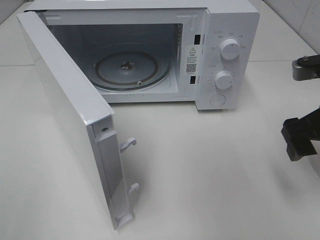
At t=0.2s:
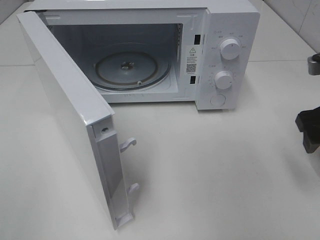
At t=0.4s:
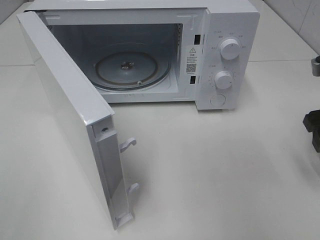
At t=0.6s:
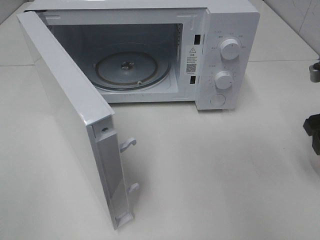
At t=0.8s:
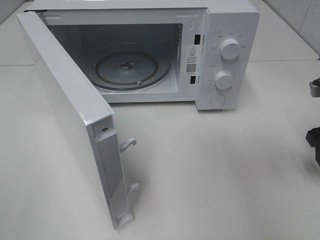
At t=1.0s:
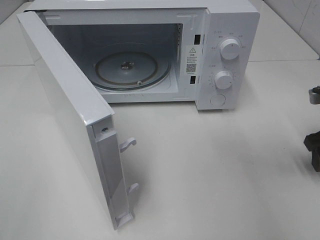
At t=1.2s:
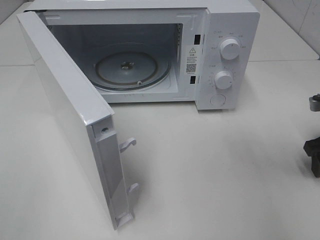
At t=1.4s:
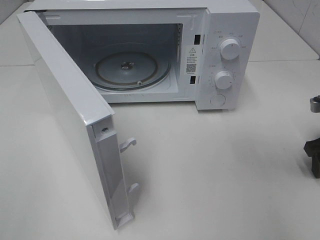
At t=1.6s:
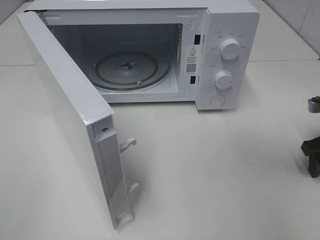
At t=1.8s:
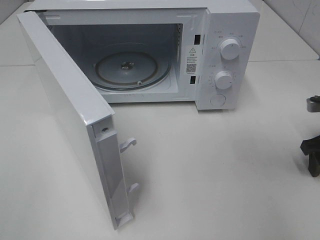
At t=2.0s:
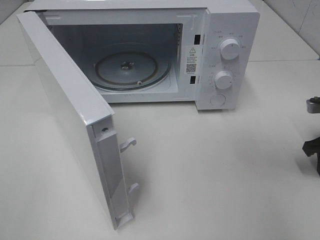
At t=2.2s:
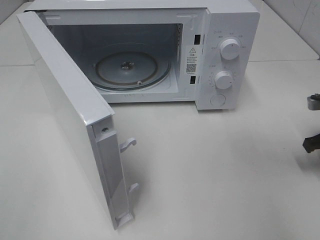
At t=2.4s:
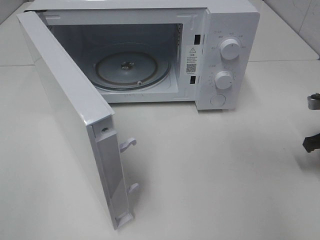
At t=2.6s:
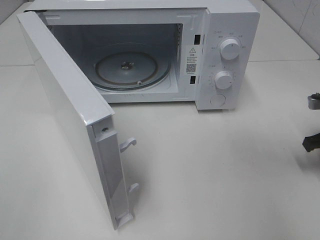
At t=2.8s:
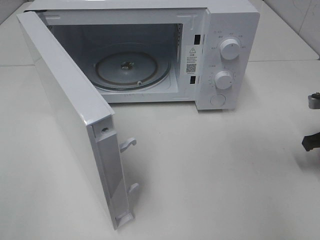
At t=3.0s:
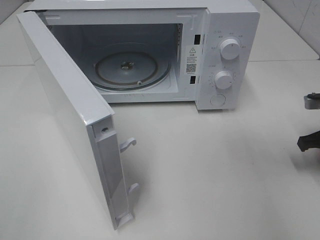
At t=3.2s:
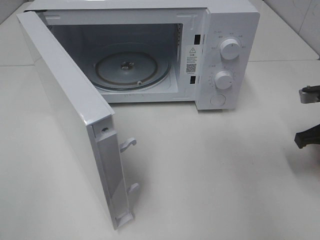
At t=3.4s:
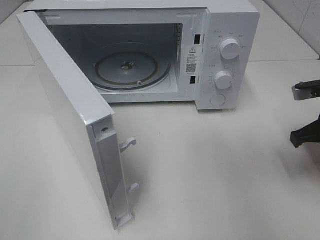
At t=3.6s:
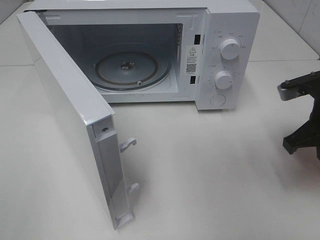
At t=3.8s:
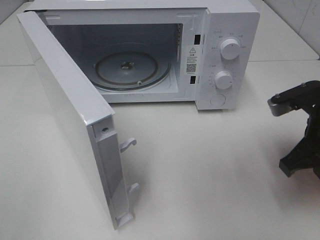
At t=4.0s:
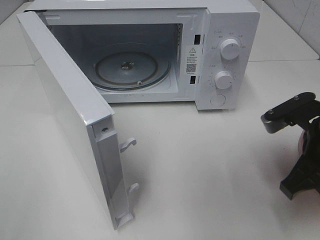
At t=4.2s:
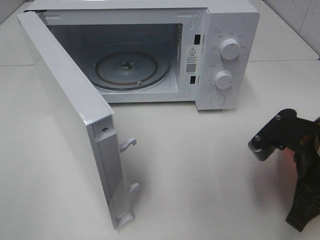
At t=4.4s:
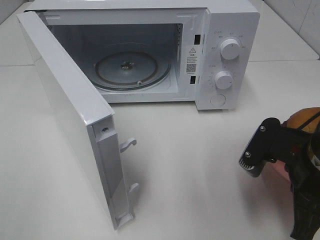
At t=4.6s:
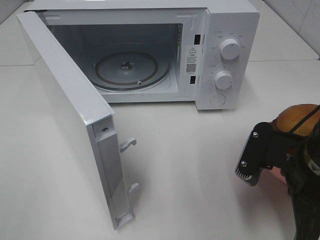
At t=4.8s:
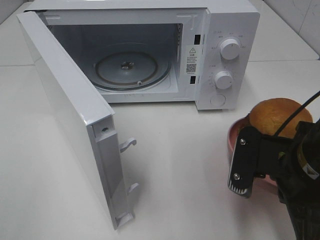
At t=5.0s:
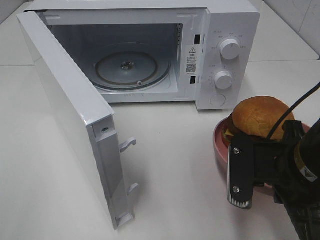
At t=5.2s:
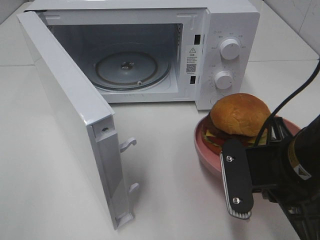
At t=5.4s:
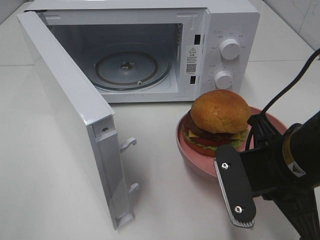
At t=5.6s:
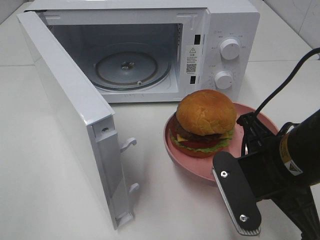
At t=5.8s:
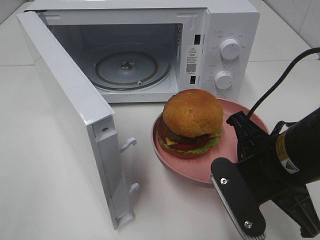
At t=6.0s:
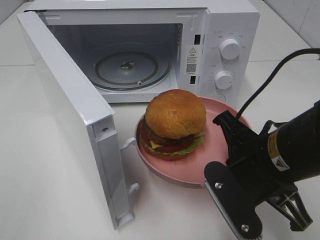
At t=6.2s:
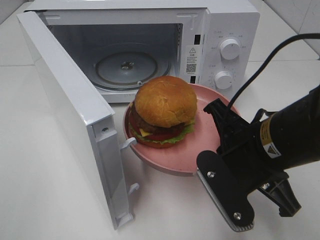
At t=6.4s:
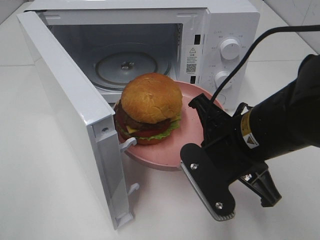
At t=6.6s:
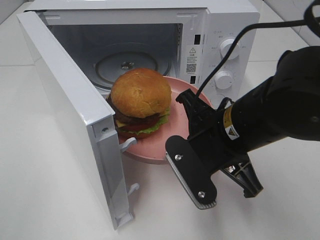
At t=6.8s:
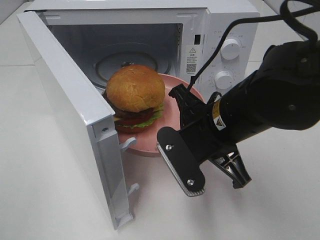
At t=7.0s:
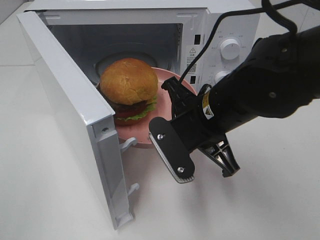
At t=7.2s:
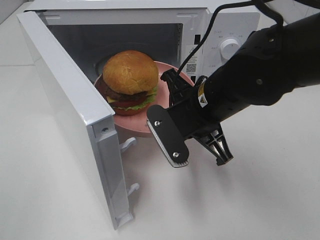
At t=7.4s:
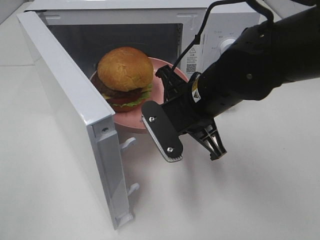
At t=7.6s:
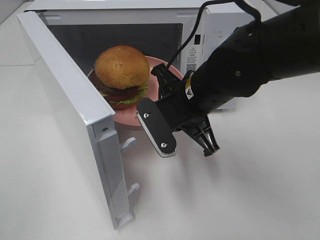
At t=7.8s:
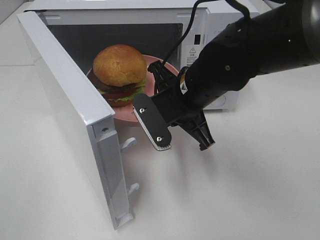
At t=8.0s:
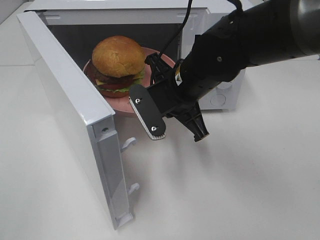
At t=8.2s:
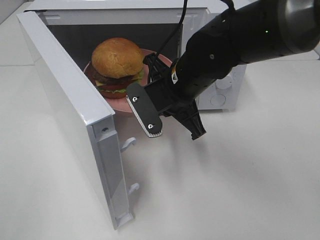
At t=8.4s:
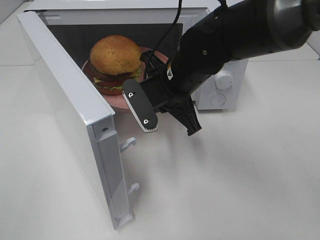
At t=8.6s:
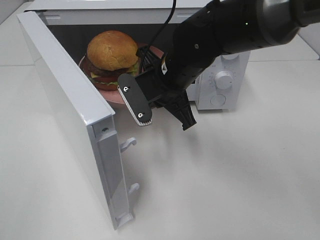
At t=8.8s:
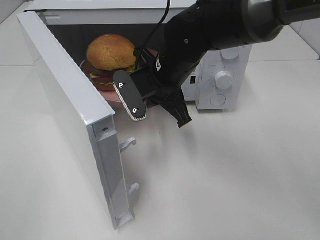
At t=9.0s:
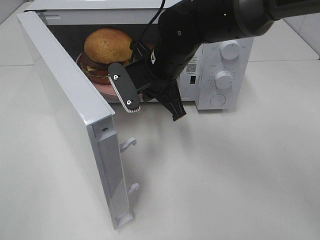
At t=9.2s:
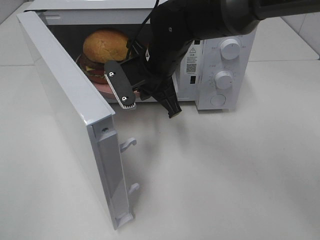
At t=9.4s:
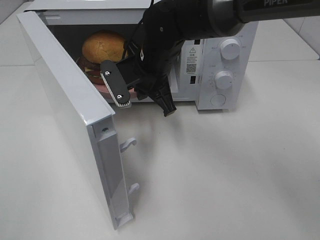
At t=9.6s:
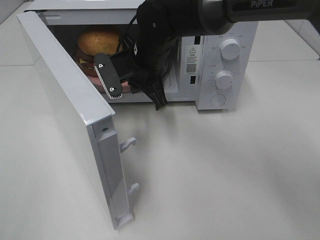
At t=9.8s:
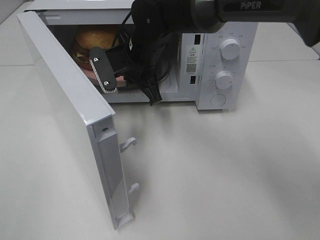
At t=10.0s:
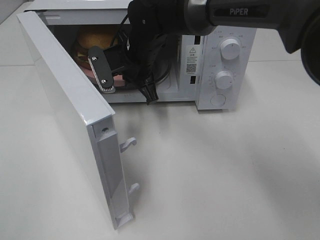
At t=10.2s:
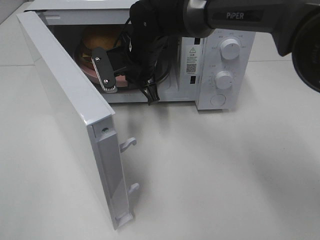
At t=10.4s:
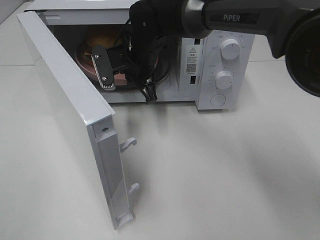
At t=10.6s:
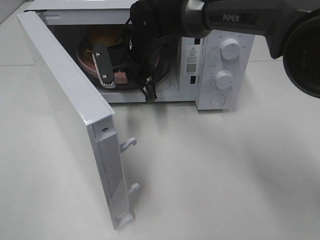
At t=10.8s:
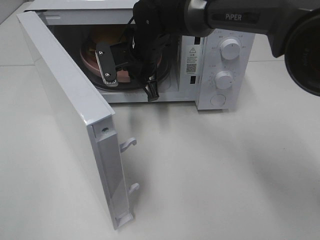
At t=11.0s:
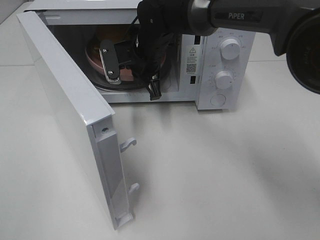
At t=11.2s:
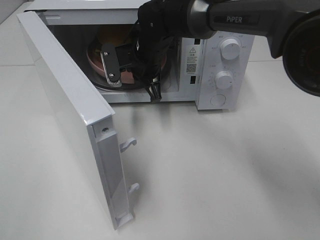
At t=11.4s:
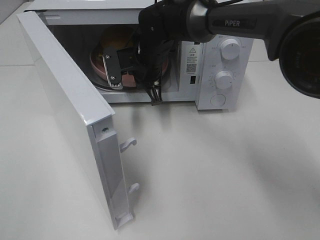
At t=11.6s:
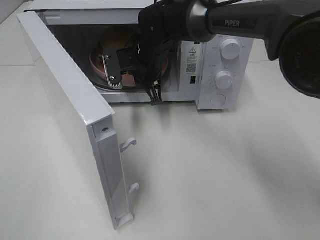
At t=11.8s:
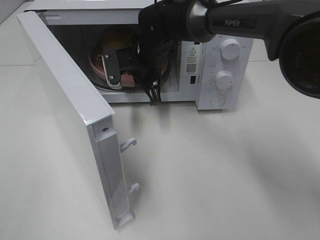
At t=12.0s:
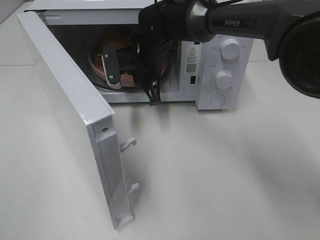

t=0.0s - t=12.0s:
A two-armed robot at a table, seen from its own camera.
Task of the whole recording: Heat the burger.
Step, t=0.0s - t=3.0s: Right hand: grab the plate with the hamburger.
t=0.0s - t=1.6s: The right gripper travels downward, to the right and forward by about 15 cm.
t=1.6s - t=3.0s: The right gripper closes.
t=3.0s - t=4.4s: The right gripper is displaced to the left and backward by some 20 cm.
t=4.4s - t=6.0s: The right gripper goes roughly 5 cm to the left.
t=6.0s - t=7.6s: The right gripper goes some 15 cm forward and to the left.
t=7.6s - t=9.0s: The right gripper goes some 5 cm forward.
t=9.0s - t=10.4s: The right gripper goes about 5 cm forward.
t=10.4s - t=12.0s: There are only small adjustments of the grippers.

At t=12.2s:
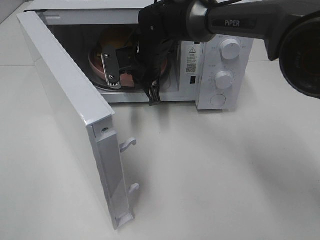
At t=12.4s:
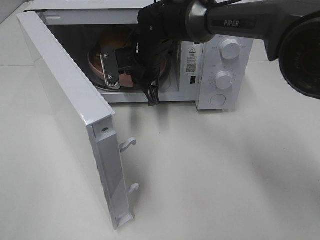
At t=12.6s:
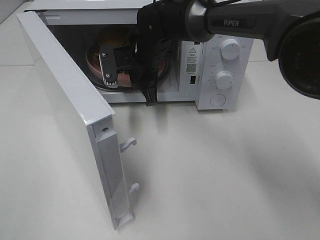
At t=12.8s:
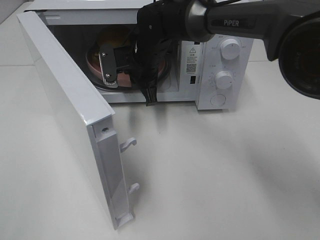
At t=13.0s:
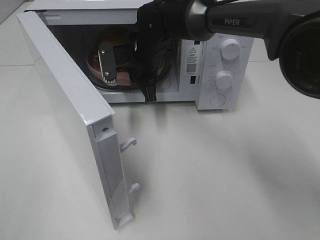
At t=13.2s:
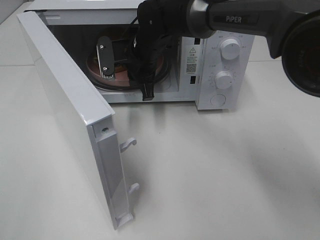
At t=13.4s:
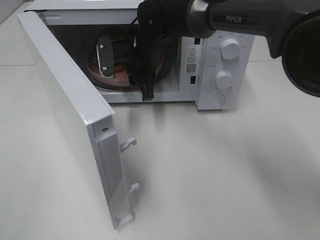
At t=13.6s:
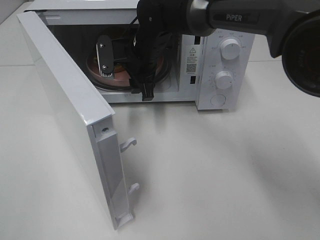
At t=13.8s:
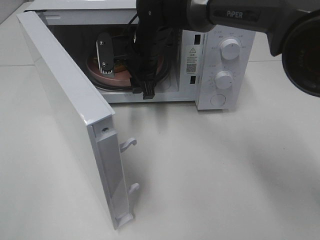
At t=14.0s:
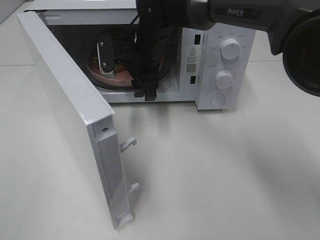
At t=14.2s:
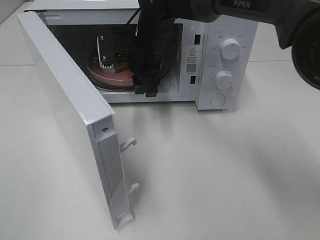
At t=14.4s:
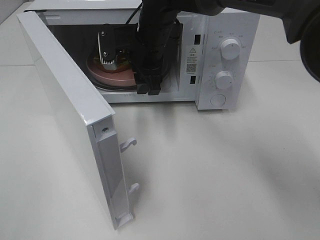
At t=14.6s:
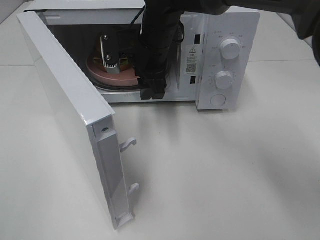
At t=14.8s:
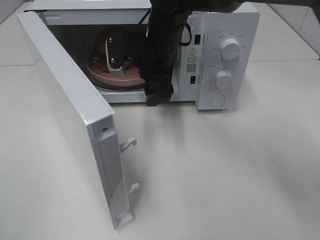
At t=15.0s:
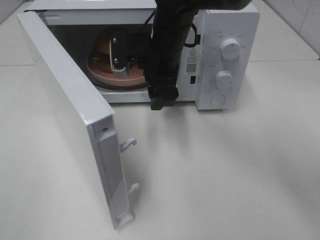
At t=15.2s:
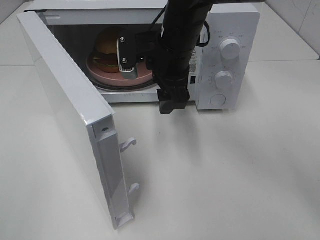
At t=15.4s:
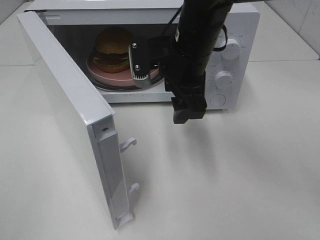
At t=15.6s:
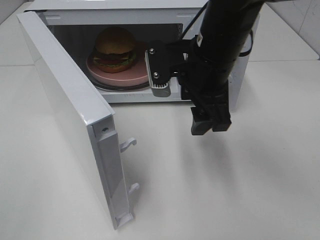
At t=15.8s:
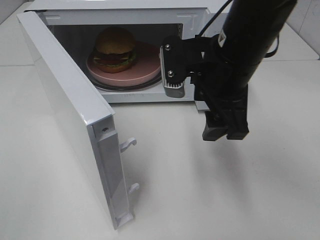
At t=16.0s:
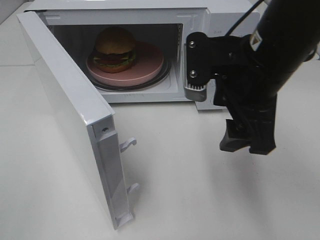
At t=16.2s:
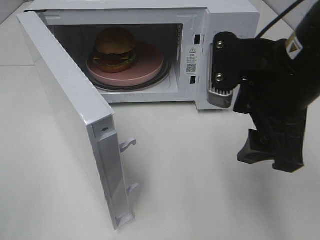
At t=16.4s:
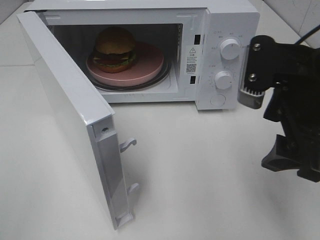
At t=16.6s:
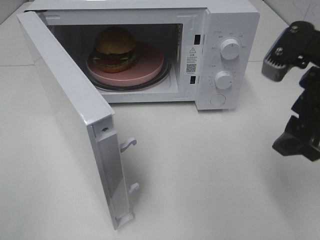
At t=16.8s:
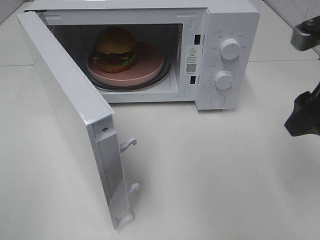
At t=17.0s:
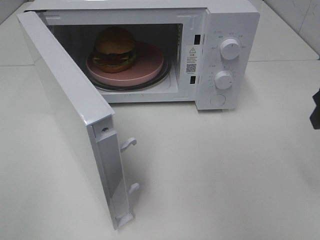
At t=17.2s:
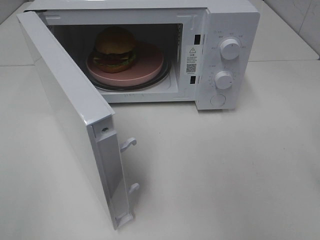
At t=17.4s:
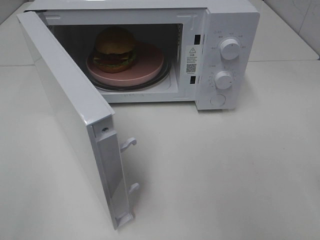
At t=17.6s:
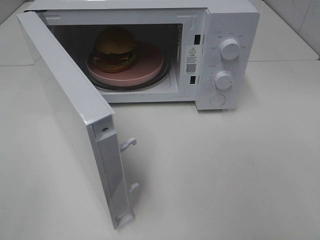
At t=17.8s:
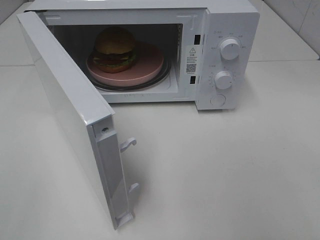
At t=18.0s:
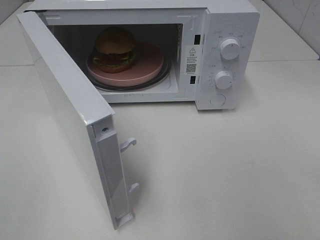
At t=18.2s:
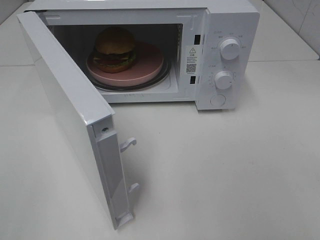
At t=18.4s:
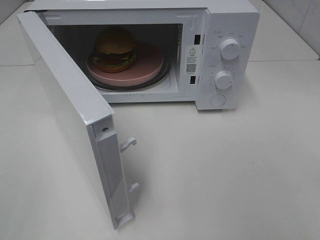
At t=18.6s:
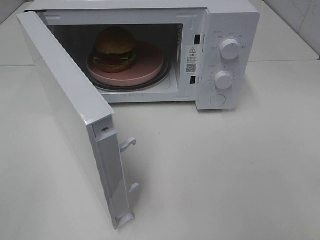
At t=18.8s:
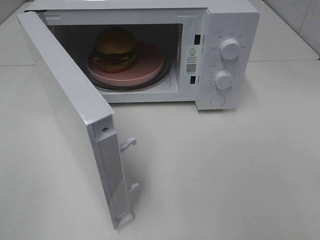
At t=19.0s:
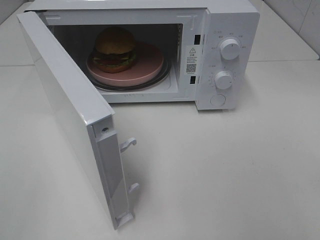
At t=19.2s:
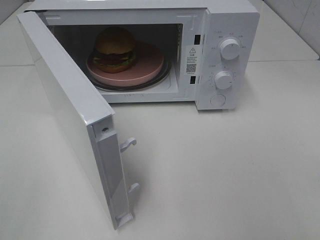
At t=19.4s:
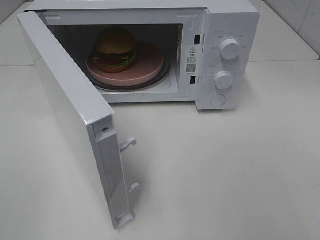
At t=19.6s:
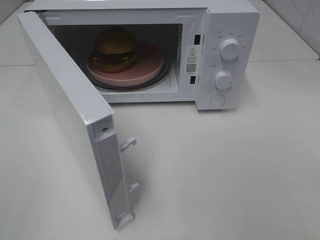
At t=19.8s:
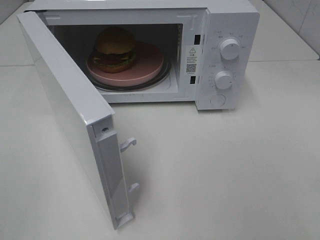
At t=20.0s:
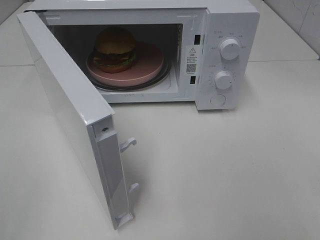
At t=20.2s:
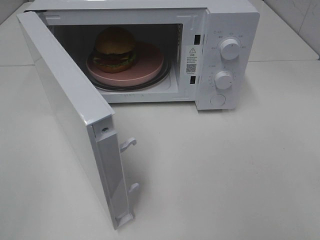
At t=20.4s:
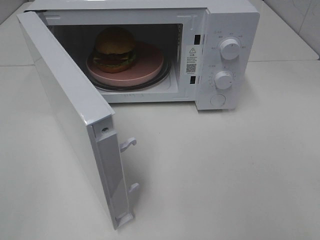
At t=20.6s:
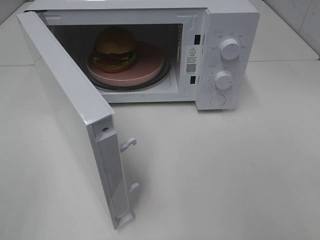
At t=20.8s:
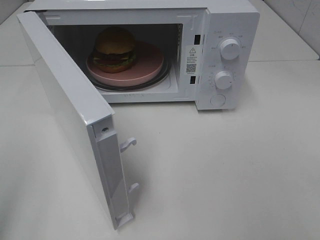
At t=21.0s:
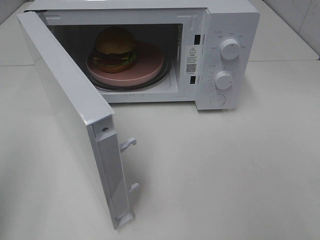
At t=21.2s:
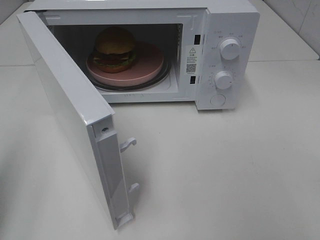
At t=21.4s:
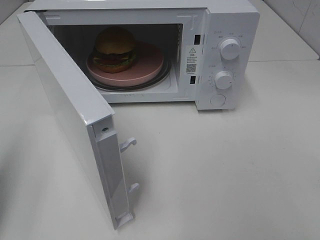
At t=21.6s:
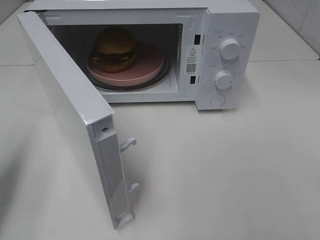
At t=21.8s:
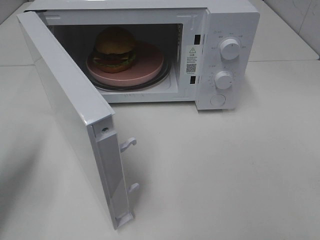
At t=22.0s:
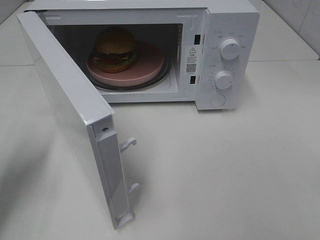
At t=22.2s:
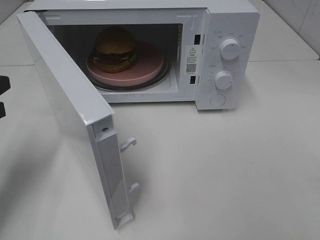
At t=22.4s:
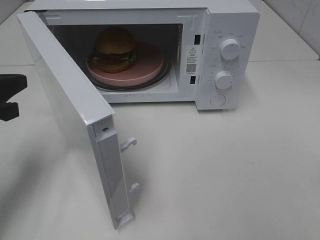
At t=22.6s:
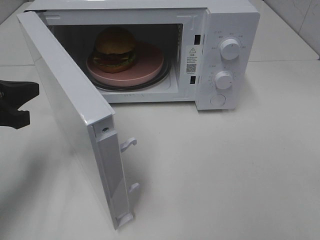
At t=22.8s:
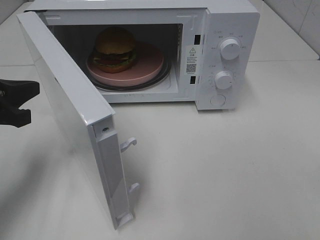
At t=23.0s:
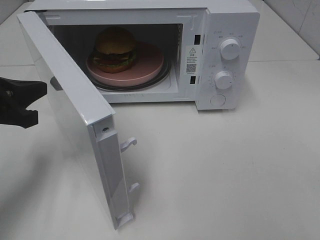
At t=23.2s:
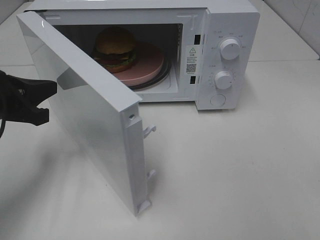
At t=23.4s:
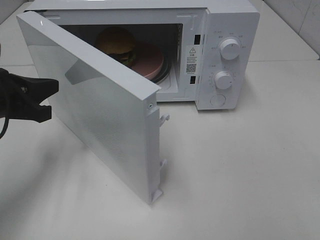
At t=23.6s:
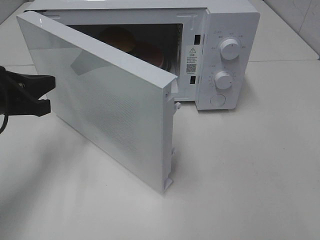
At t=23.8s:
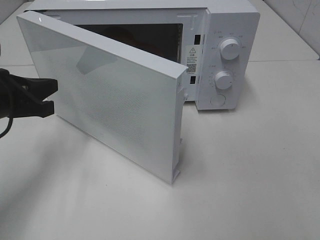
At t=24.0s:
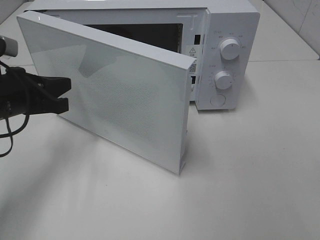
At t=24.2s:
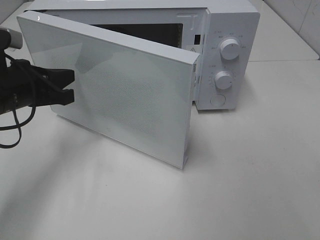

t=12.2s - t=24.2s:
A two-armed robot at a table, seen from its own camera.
Task of the whole recording: Heat the burger.
t=12.2s - t=13.8s: The right gripper opens.
t=13.8s - t=15.2s: The right gripper goes about 5 cm backward.
t=15.2s - t=16.6s: The right gripper shifts about 25 cm to the right and backward.
t=16.6s - t=18.2s: The right gripper moves backward and to the right, approximately 20 cm.
t=21.2s - t=22.6s: The left gripper moves forward, downward and to the right, about 15 cm.
t=22.6s - t=24.2s: The left gripper ends up approximately 5 cm from where it was.
